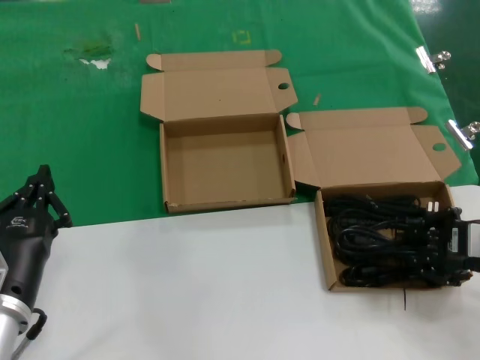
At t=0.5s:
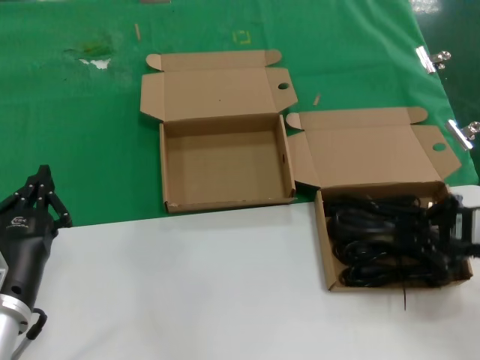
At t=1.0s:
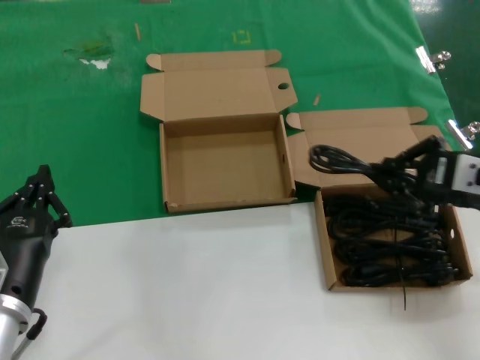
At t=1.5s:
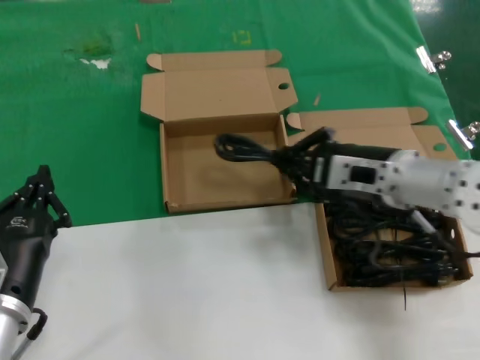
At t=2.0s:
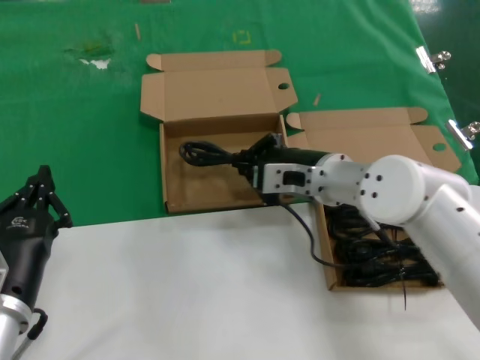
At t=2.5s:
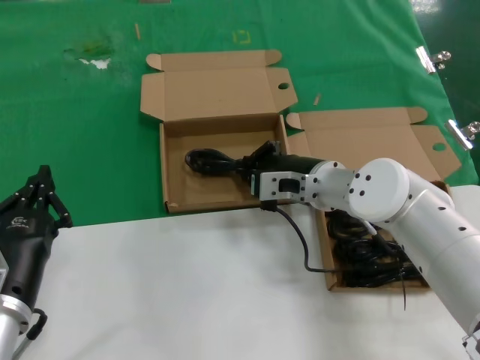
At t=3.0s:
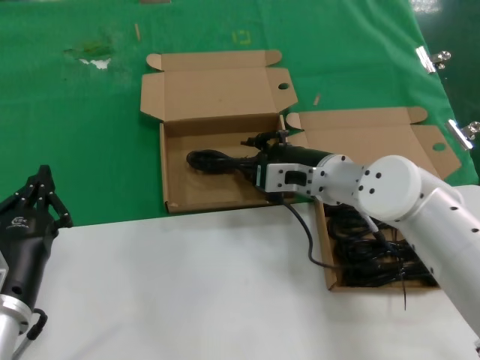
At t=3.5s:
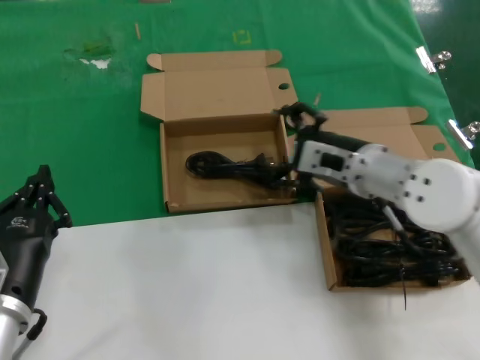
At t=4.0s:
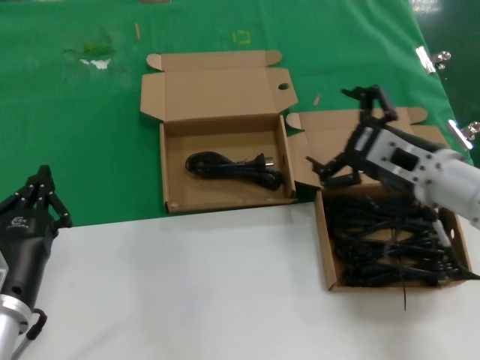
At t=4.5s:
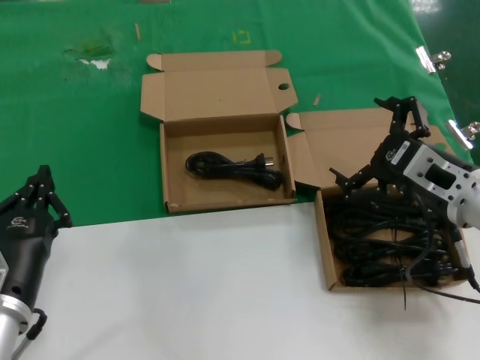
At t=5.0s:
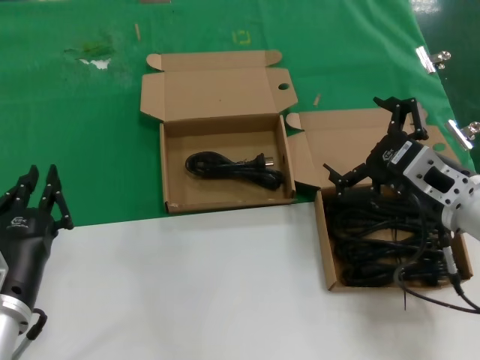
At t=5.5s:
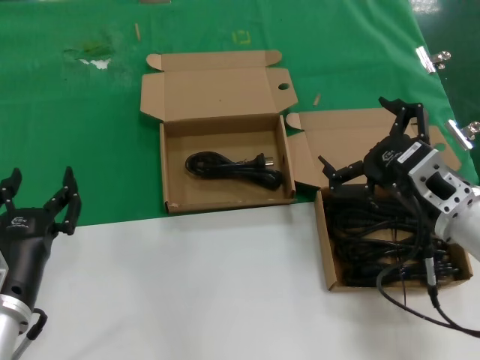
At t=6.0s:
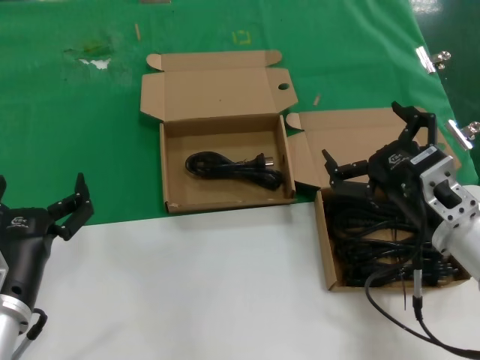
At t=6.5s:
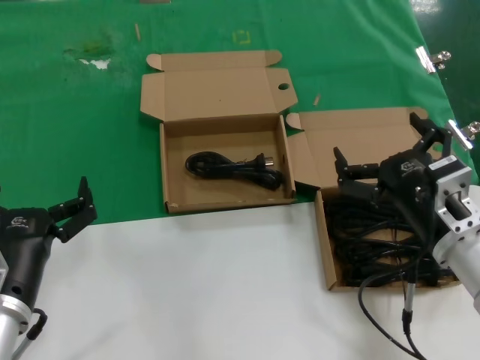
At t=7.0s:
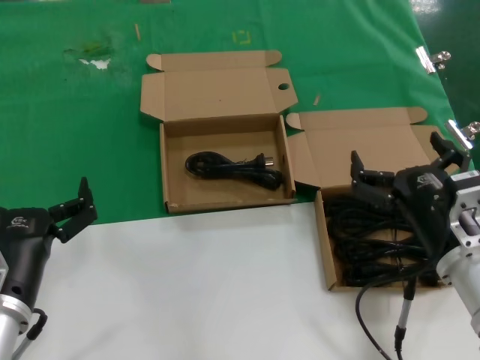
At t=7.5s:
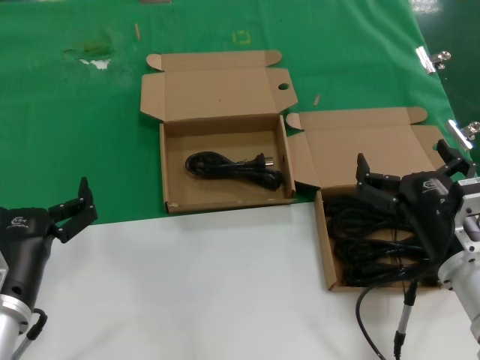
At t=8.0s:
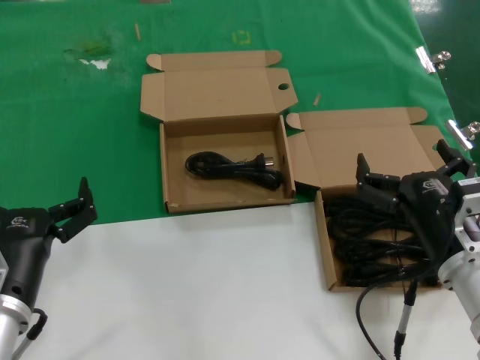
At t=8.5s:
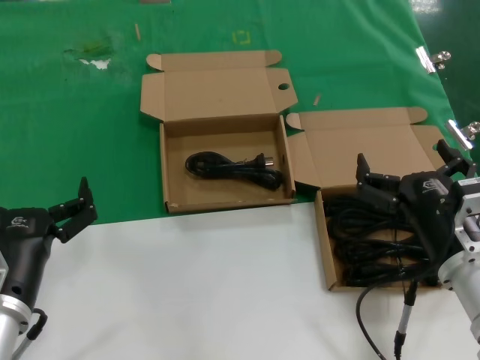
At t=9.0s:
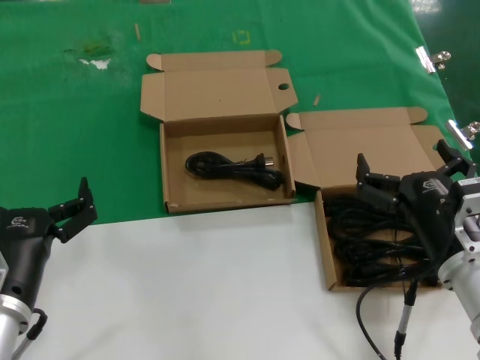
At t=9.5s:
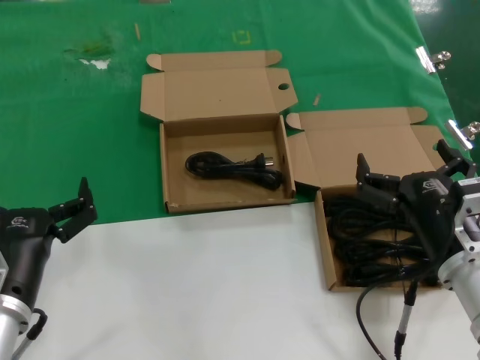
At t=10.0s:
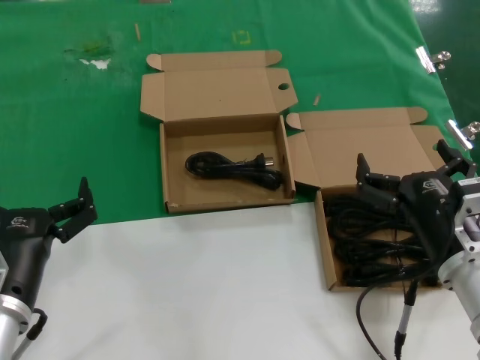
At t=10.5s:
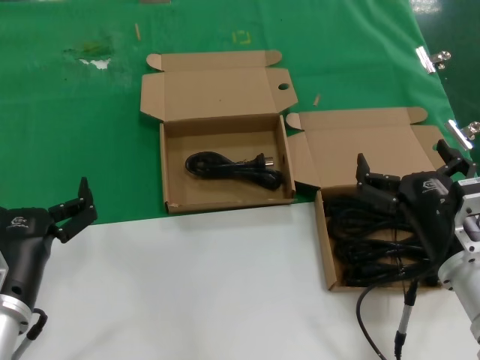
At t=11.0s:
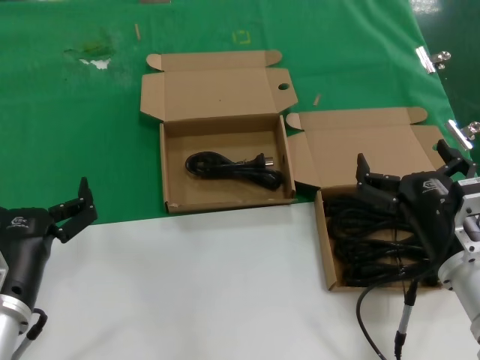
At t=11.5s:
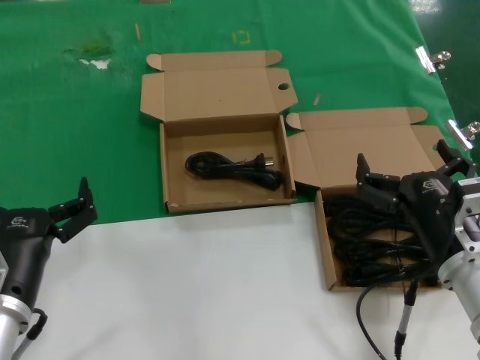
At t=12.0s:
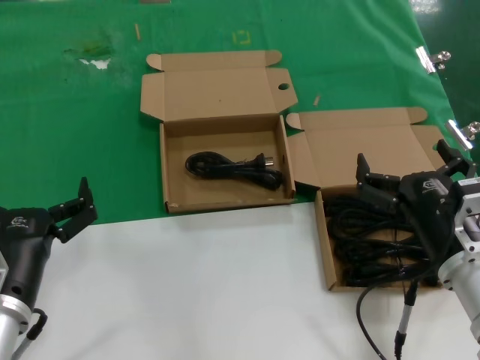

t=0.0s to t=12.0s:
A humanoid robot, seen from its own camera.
Task of the whole recording: take the parts from the box containing them and put them into an empty box.
Step, t=0.5s to t=2.5s: Place the data cable in the another box.
t=0.0s to t=2.0s: The right hand goes some 25 cm to the left and forward.
t=2.0s to t=4.0s: The right hand goes approximately 10 cm to the right and backward.
t=4.0s to t=6.0s: The right hand travels backward by about 5 cm.
t=6.0s to t=8.0s: The right hand shifts by approximately 5 cm.
t=8.0s to t=12.0s: The two hands keep their place.

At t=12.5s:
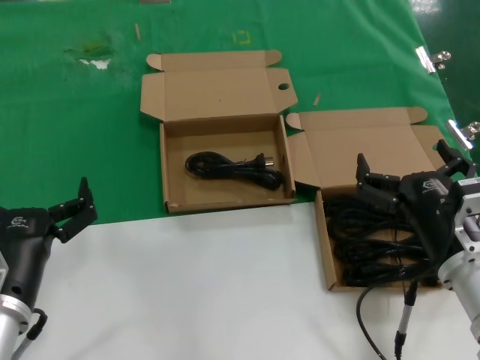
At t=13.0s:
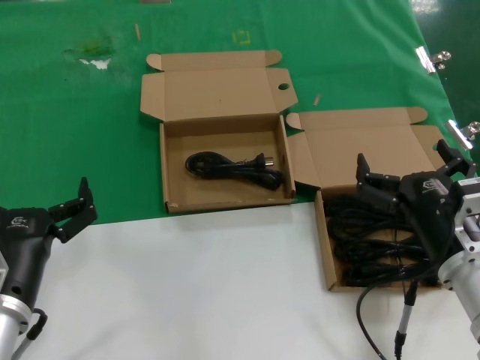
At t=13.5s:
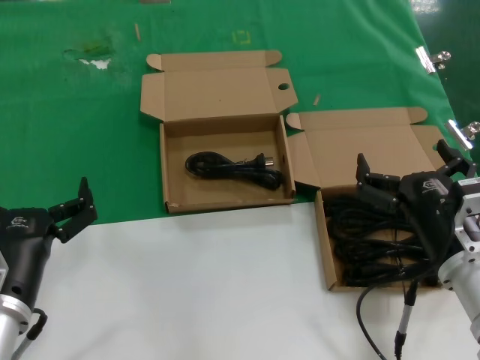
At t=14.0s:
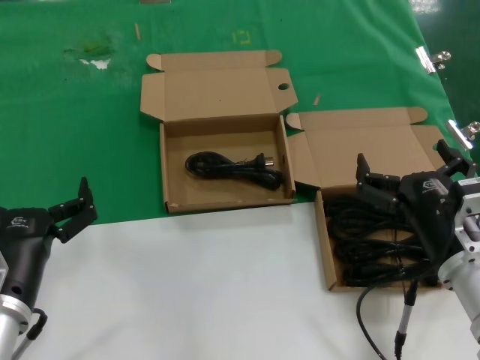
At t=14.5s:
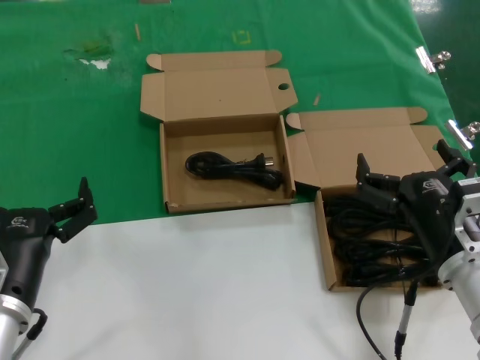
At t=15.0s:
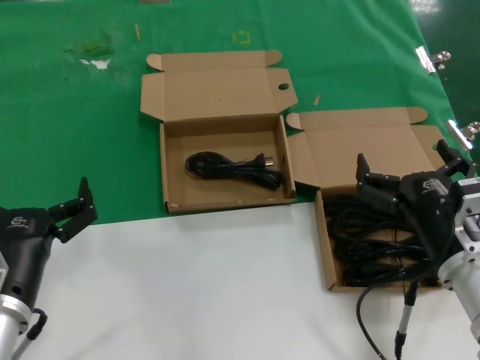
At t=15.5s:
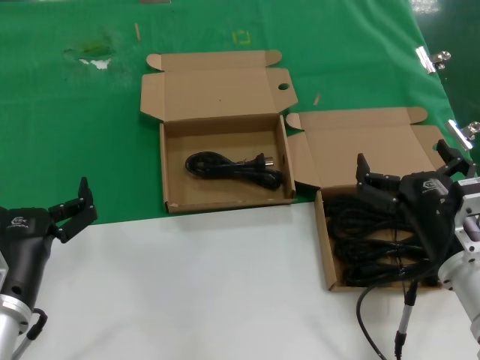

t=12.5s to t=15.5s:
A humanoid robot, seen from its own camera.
Task of the whole recording: take the parts from the box containing them and put them into an empty box.
t=12.5s to t=15.5s: Neither hand changes place.
